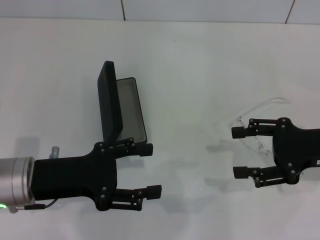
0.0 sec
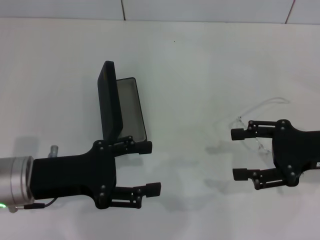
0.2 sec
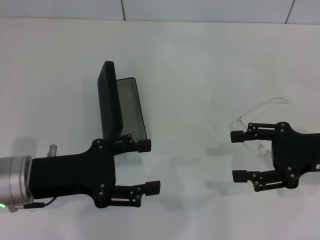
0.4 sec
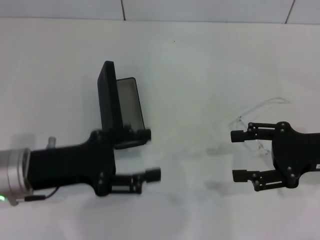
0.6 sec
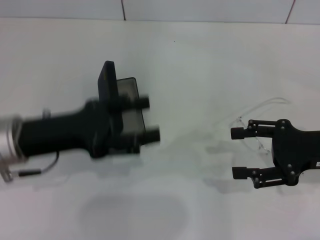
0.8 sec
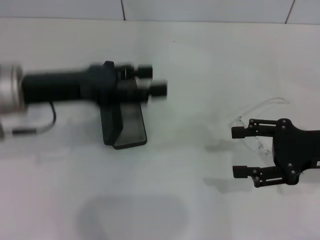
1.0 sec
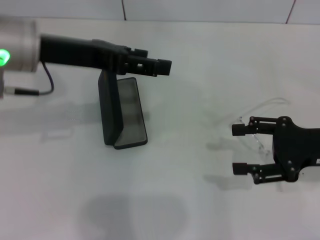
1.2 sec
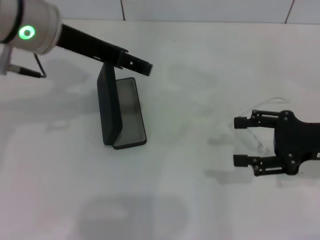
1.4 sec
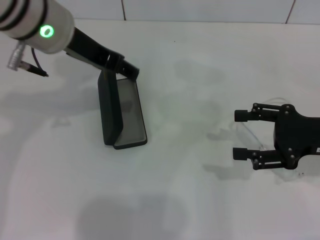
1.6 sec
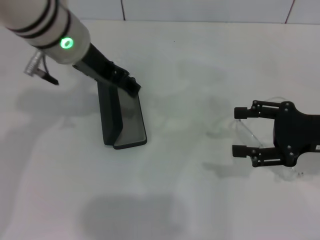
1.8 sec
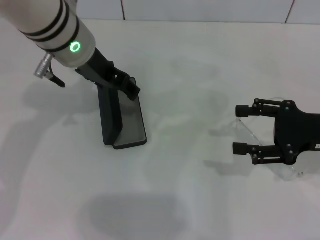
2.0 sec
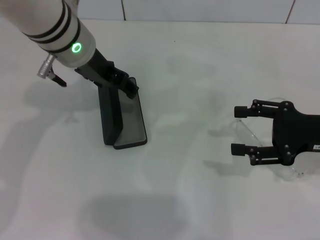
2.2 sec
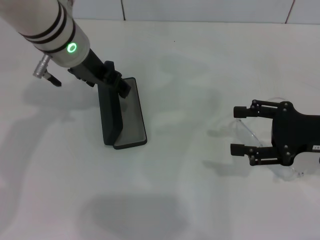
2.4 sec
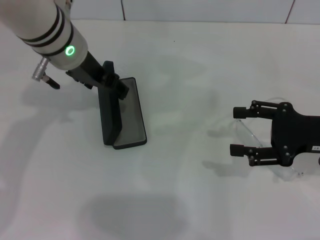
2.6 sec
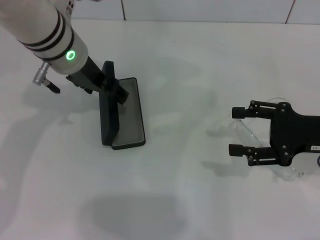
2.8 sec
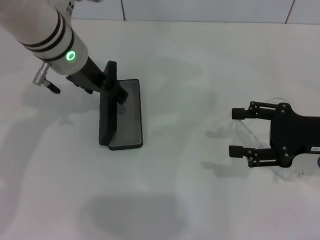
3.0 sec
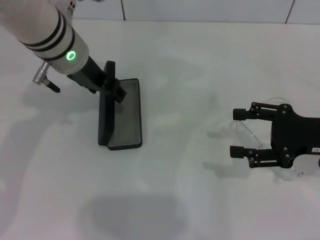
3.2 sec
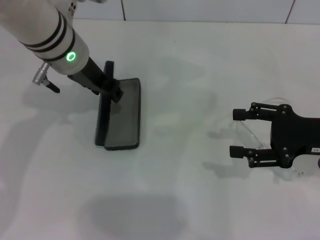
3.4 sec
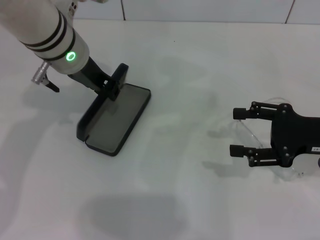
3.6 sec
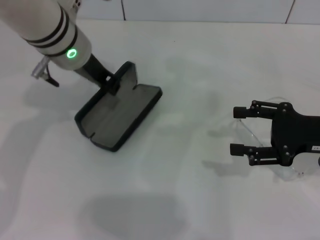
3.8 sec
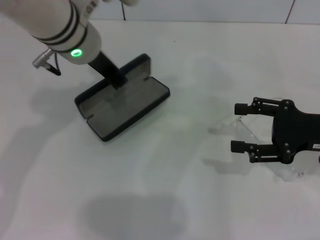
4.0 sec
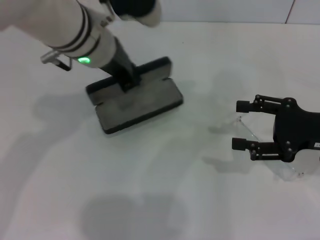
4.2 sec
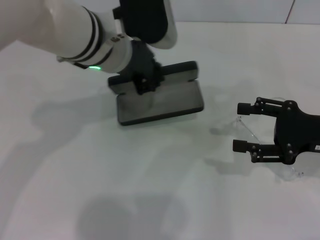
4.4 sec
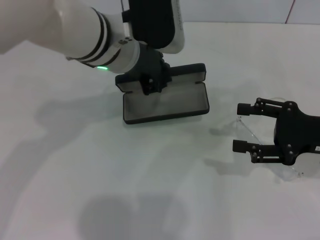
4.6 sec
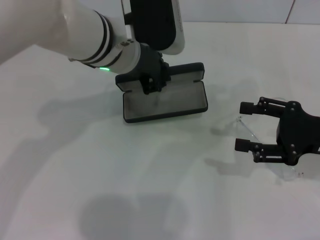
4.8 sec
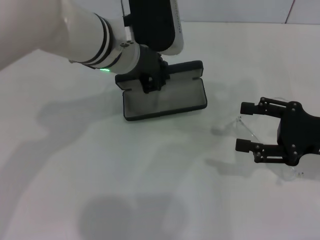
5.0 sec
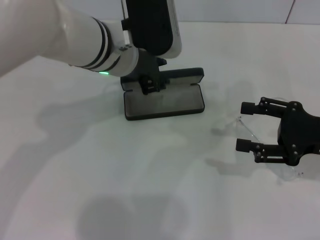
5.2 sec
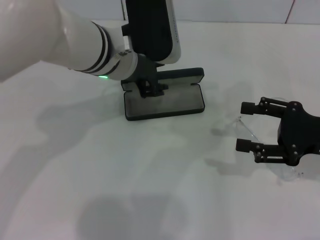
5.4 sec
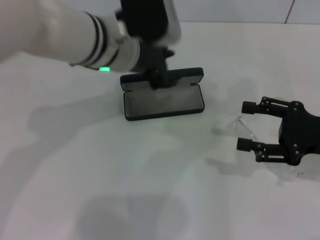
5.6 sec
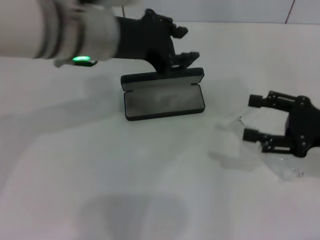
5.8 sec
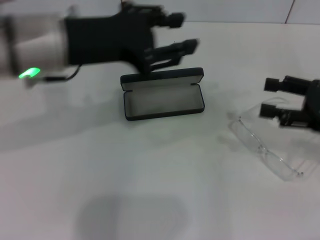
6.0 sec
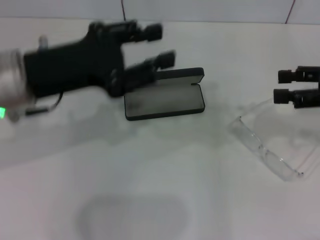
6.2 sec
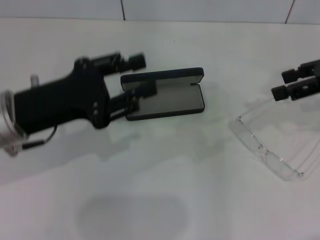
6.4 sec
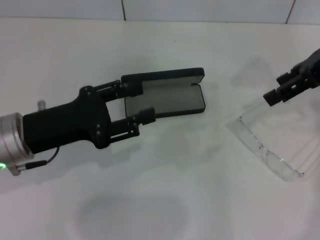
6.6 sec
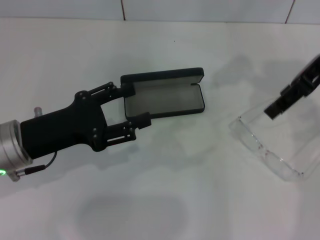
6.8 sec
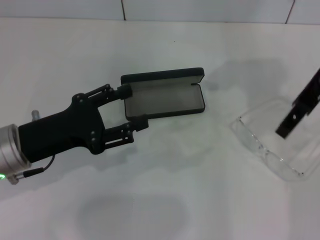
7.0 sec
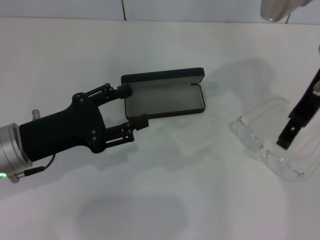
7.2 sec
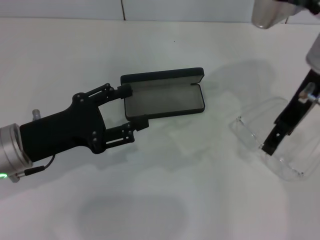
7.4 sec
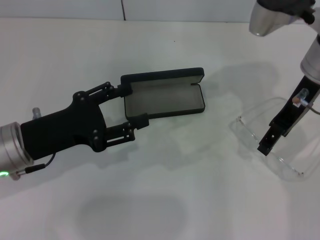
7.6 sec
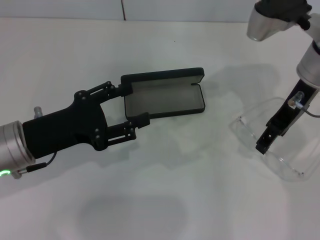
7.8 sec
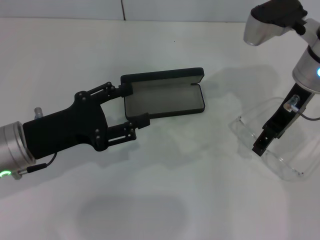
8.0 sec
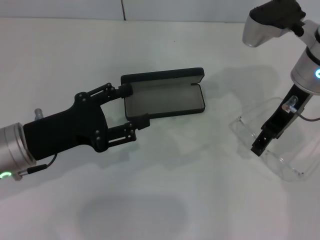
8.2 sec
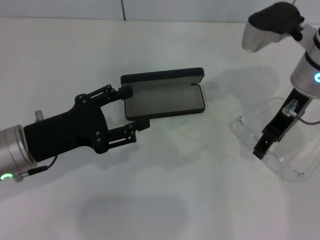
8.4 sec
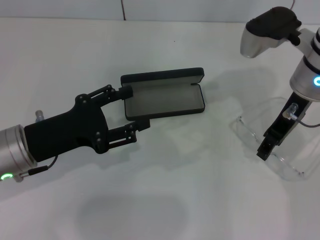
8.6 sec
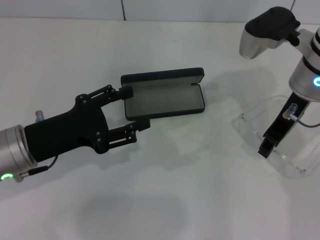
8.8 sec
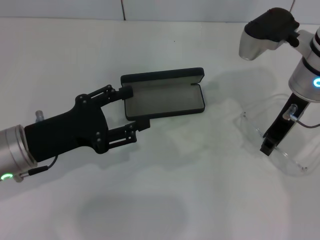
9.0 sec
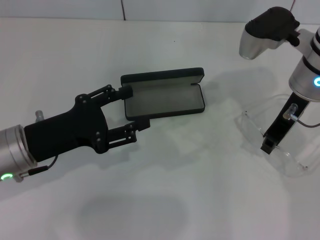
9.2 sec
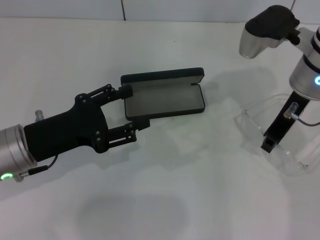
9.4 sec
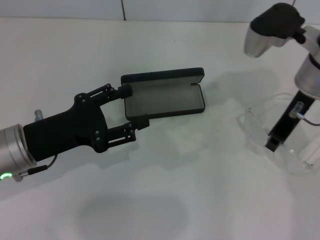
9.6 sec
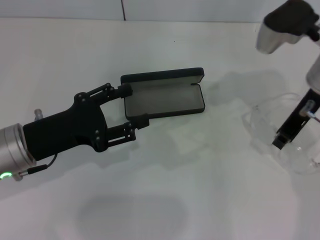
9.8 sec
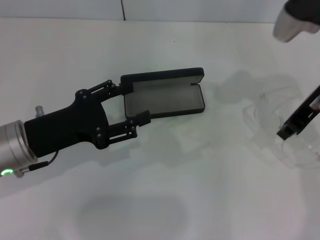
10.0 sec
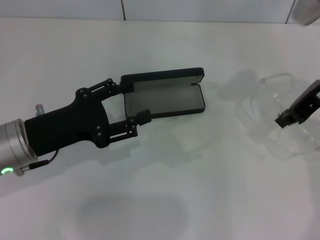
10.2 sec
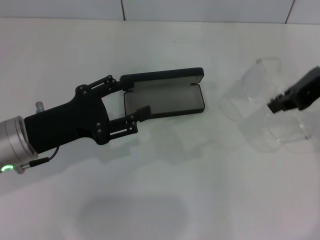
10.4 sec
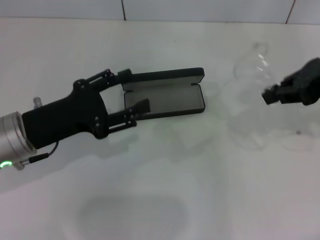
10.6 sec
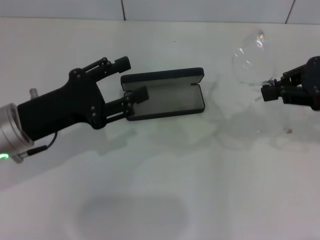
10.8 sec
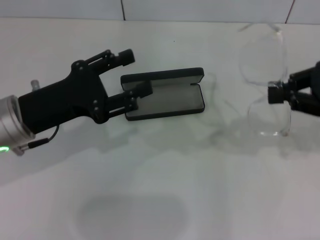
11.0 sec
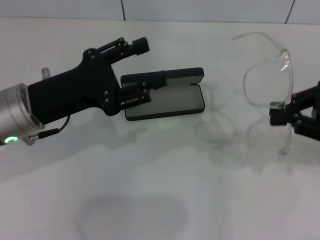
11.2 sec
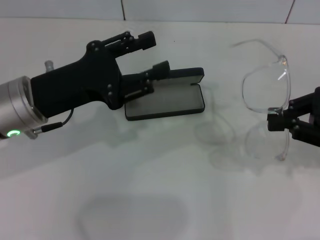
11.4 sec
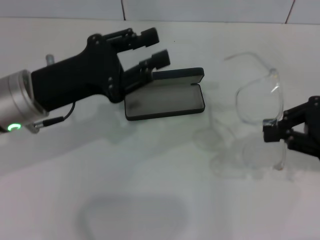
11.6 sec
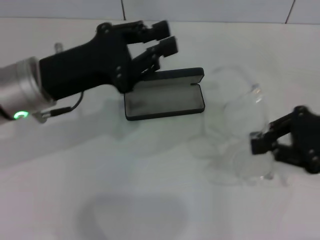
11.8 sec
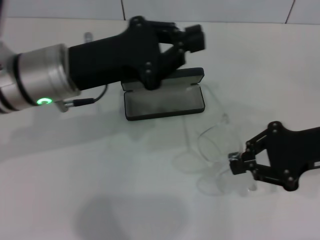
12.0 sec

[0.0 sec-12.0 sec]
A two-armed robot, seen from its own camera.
Step, 0.0 sec to 3.6 sec: Grab the glasses case with your left hand.
Step, 3.8 sec to 5.4 sec: Place the glasses case in the center of the table with your left hand.
Step, 5.8 sec to 9.2 sec: Grab the eyeglass frame with your right hand.
0.0 sec to 1.6 sec: The left gripper travels upward, forward and to the right by roughly 20 cm.
1.6 sec to 3.0 sec: The left gripper is displaced downward by about 5 cm.
3.0 sec to 4.4 sec: The left gripper moves some 5 cm, and closes.
4.4 sec to 6.0 sec: The left gripper is displaced to the left by roughly 10 cm, and opens.
6.0 sec to 7.6 sec: The right gripper travels to the left, forward and upward by some 15 cm. The left gripper travels downward, to the left and backward by some 15 cm.
7.6 sec to 9.0 sec: The right gripper closes.
9.0 sec to 10.4 sec: The right gripper shifts roughly 10 cm upward and to the right.
10.4 sec to 12.0 sec: The left gripper is displaced upward and to the right by roughly 10 cm, and closes up. The right gripper is displaced downward and backward by approximately 10 cm.

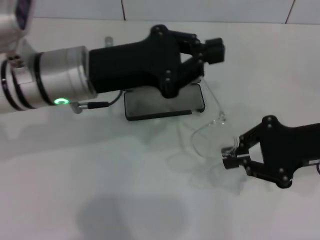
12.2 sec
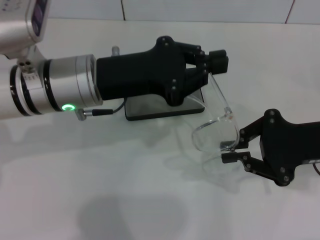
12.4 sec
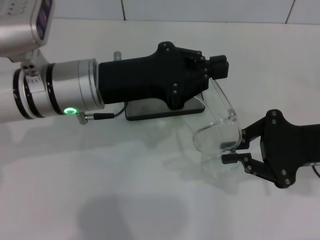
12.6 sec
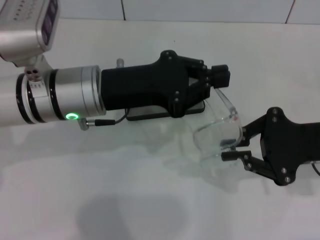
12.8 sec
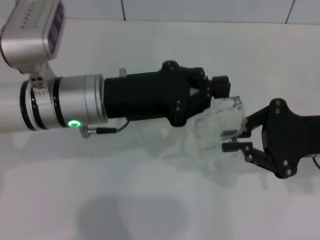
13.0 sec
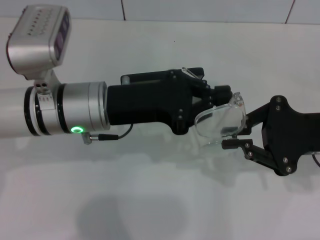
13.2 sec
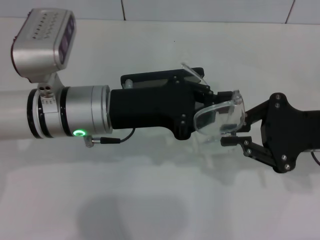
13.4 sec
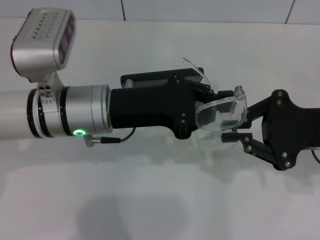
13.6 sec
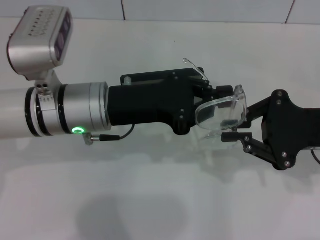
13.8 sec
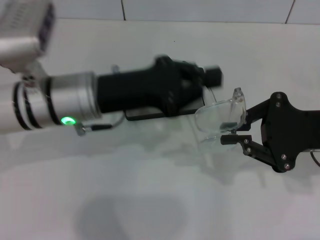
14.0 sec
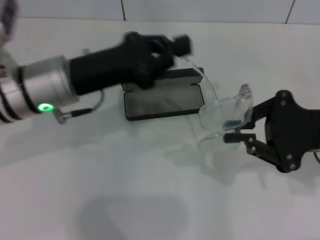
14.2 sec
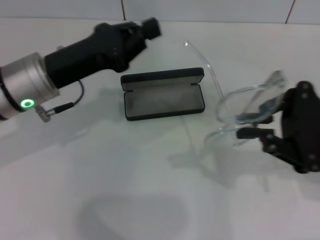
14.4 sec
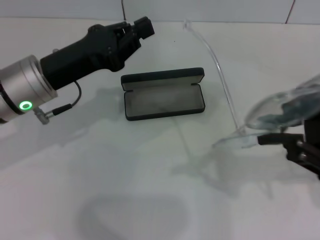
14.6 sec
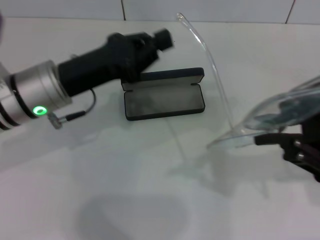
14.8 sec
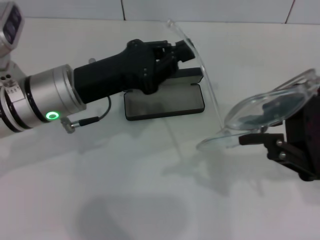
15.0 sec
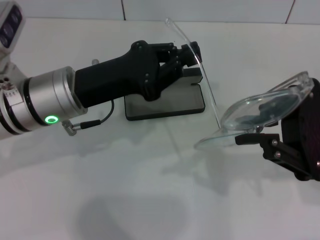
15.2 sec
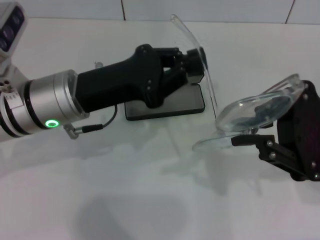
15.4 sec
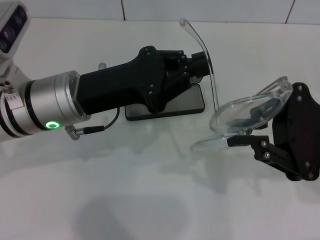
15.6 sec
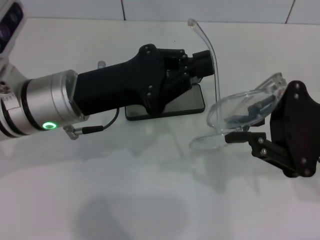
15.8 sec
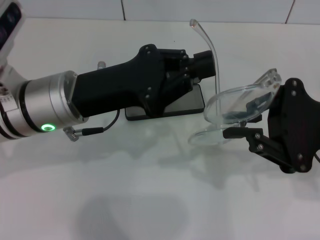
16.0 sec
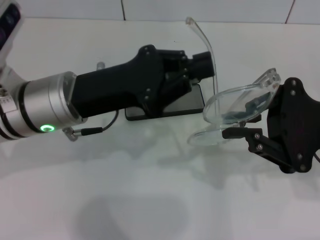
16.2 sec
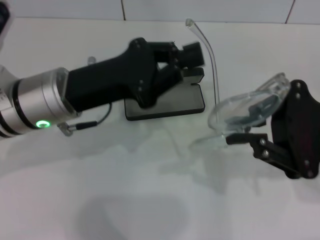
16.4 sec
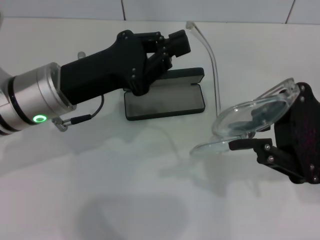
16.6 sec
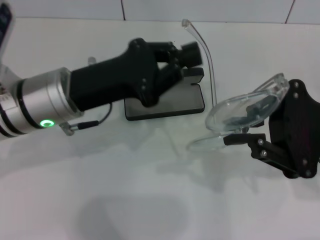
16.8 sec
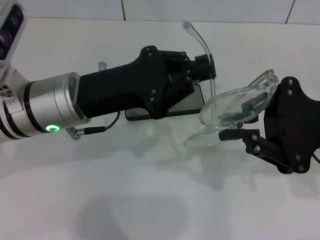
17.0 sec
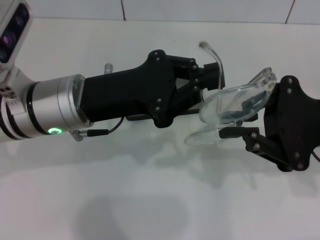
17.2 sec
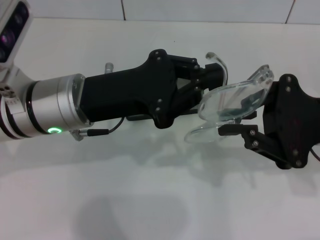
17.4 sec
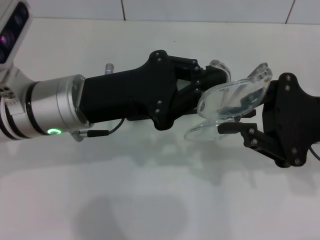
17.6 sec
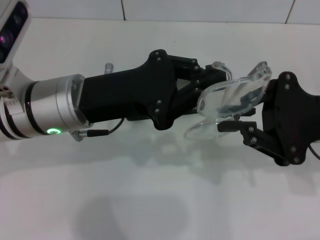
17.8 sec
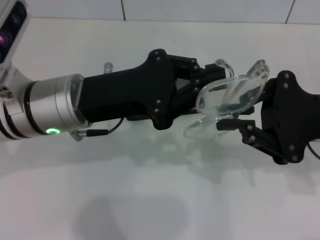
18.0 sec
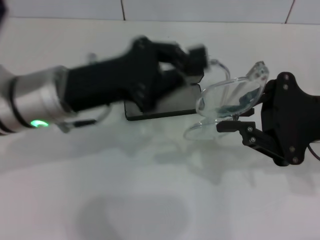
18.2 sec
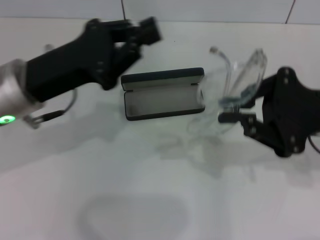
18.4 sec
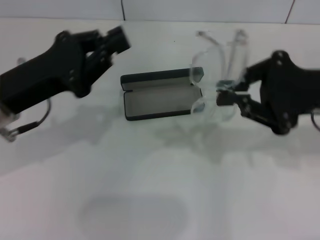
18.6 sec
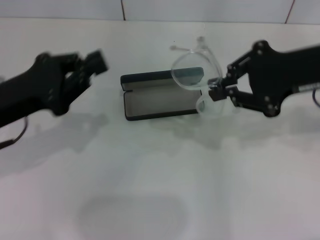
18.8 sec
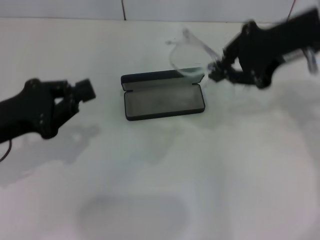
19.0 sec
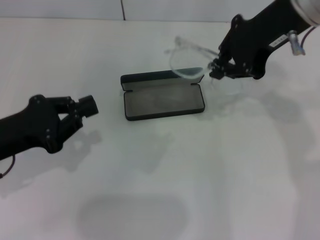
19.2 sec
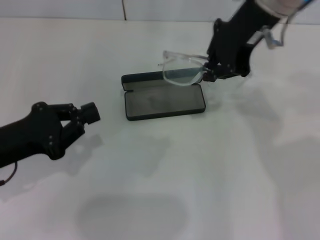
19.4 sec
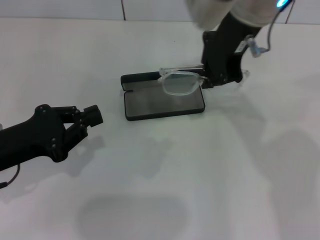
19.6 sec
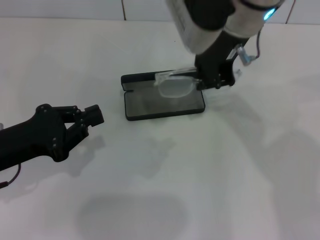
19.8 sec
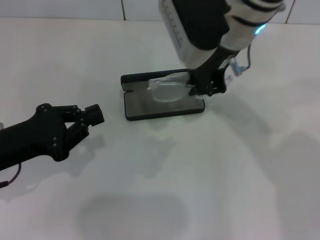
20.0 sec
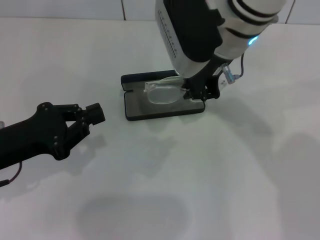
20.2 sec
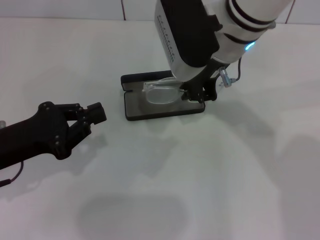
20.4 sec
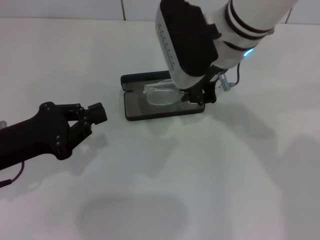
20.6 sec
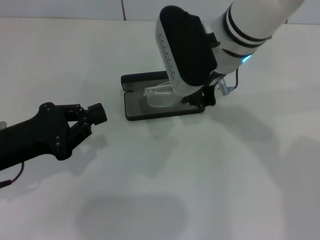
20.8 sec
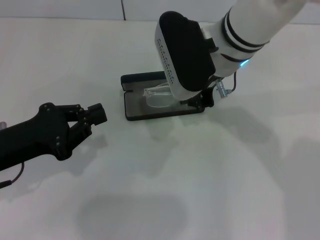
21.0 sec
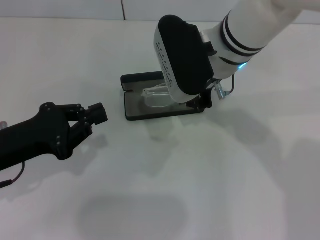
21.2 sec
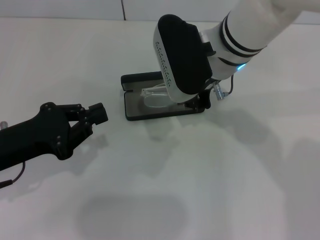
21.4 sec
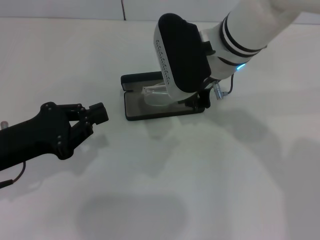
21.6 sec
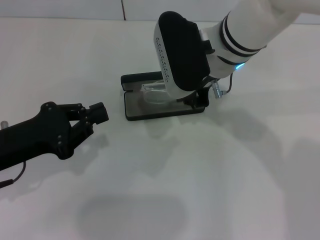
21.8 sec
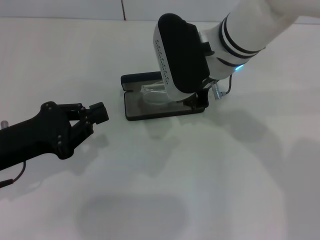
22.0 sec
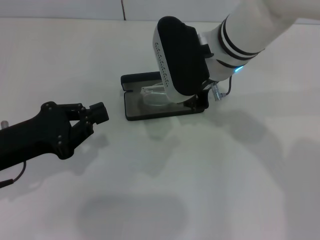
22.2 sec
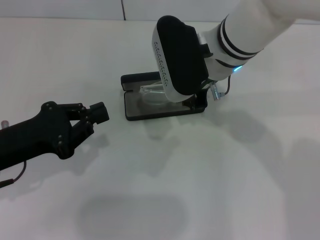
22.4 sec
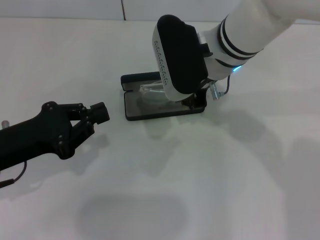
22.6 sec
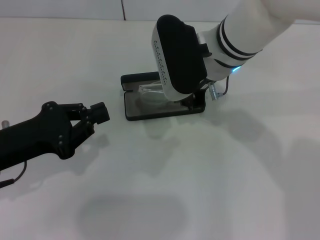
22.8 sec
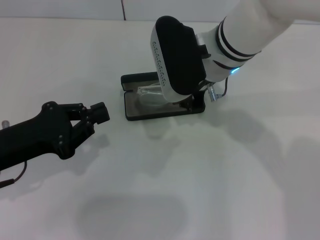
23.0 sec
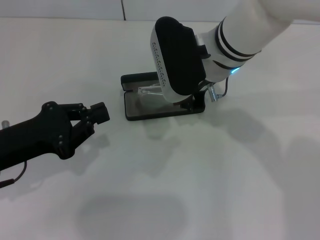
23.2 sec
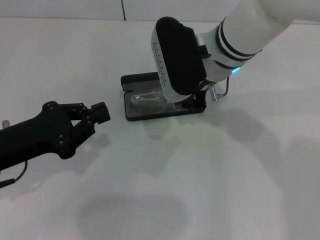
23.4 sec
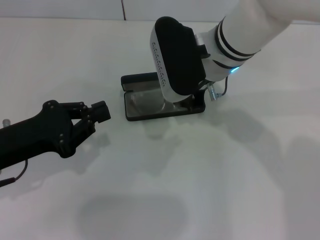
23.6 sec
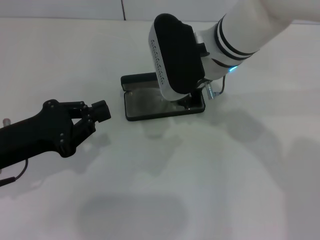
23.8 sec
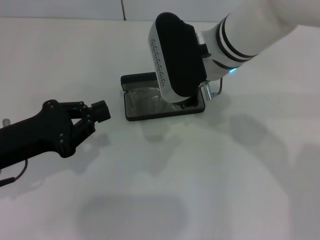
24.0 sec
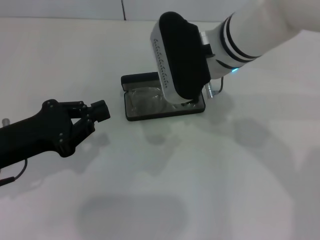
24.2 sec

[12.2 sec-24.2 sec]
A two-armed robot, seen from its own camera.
Step, 12.2 sec to 17.6 sec: Fold the frame with your left hand.
15.2 sec to 18.2 sec: The grippers stay close to where they were, moving slightly.
18.2 sec to 19.8 sec: The right gripper shifts roughly 25 cm to the left, forward and upward; the left gripper goes some 15 cm to the left, backward and downward.
19.8 sec to 21.2 sec: The right gripper goes about 5 cm downward.
21.2 sec to 22.6 sec: Neither gripper changes place.
22.6 sec to 24.2 sec: There are only small adjustments of the grippers.
